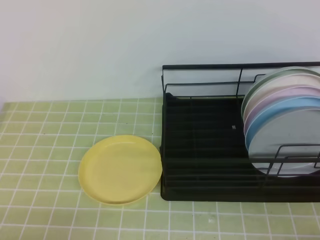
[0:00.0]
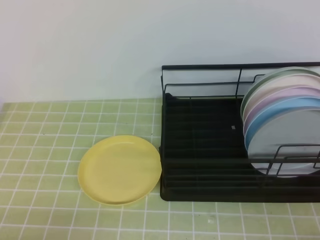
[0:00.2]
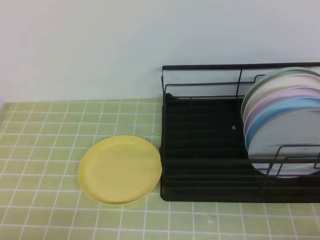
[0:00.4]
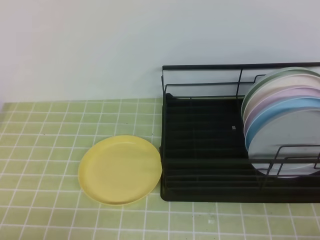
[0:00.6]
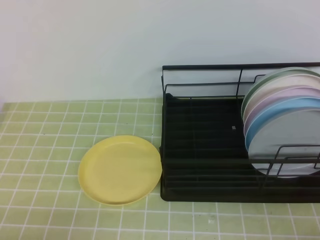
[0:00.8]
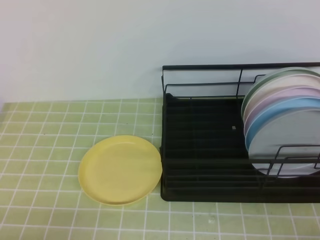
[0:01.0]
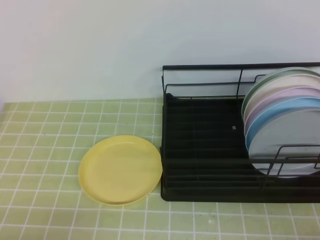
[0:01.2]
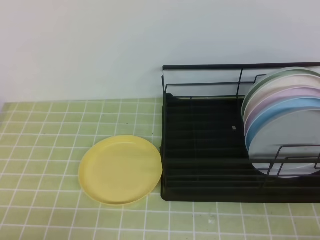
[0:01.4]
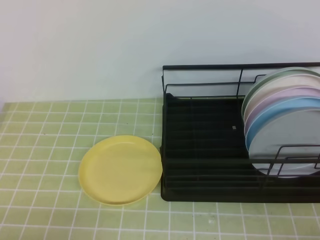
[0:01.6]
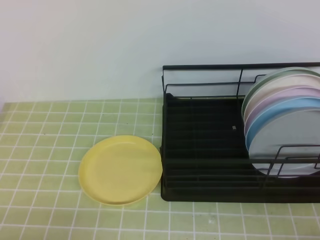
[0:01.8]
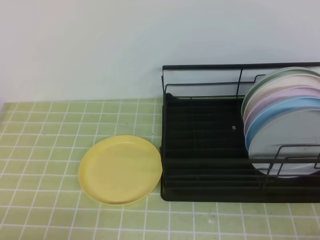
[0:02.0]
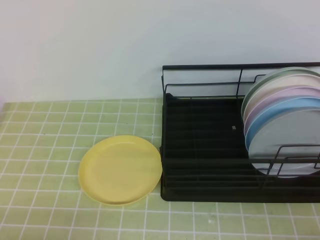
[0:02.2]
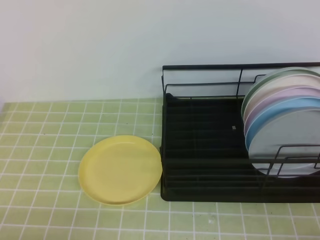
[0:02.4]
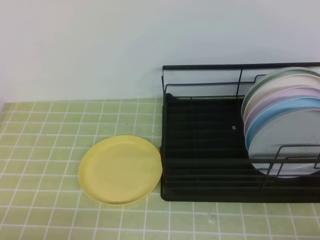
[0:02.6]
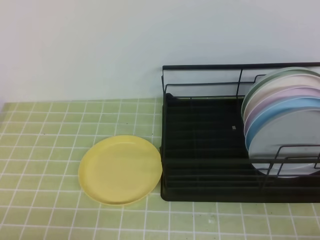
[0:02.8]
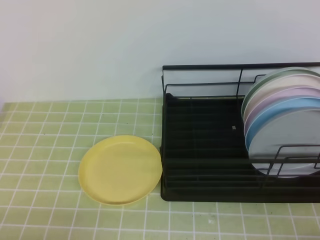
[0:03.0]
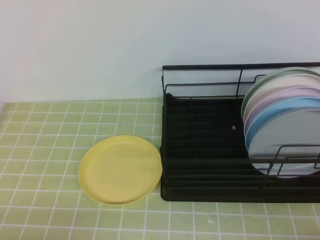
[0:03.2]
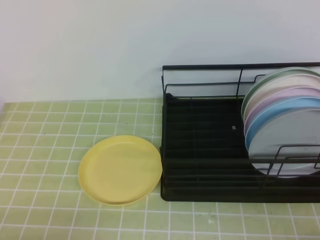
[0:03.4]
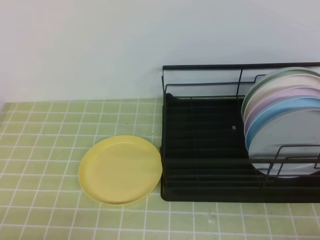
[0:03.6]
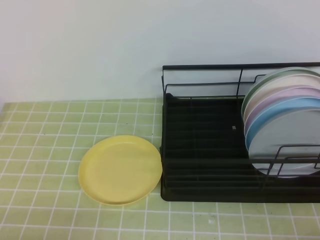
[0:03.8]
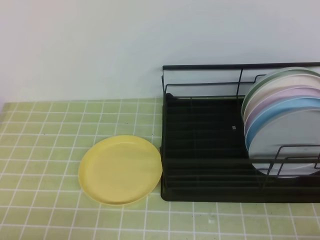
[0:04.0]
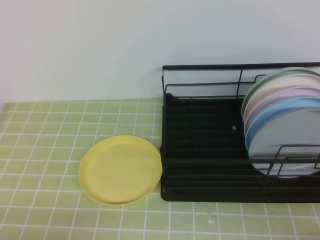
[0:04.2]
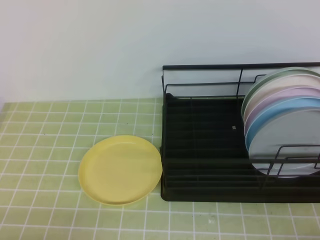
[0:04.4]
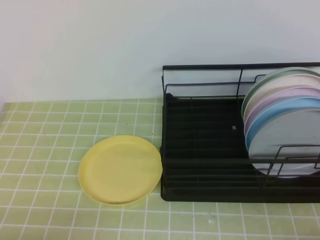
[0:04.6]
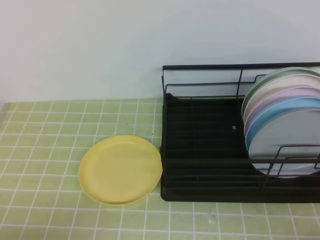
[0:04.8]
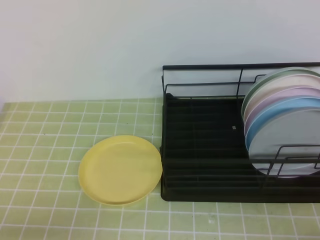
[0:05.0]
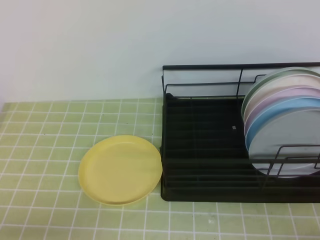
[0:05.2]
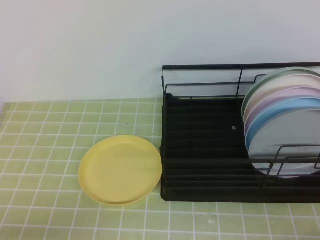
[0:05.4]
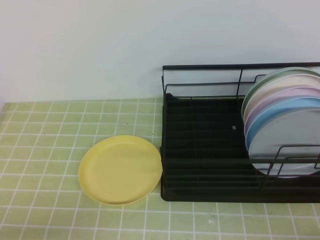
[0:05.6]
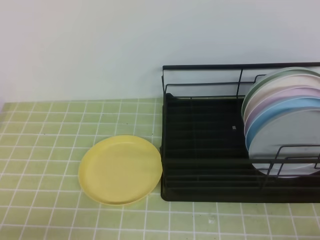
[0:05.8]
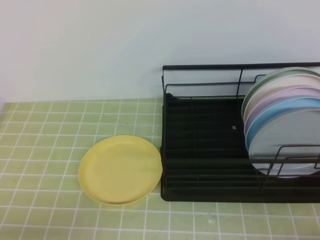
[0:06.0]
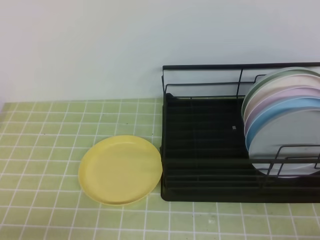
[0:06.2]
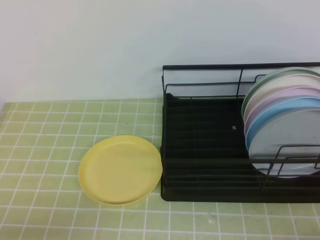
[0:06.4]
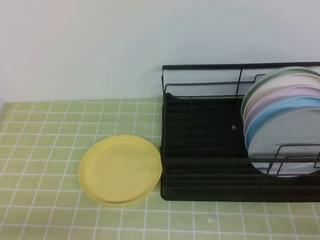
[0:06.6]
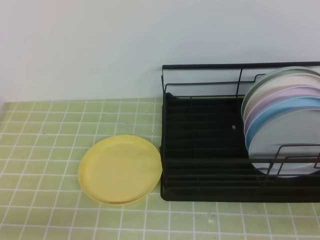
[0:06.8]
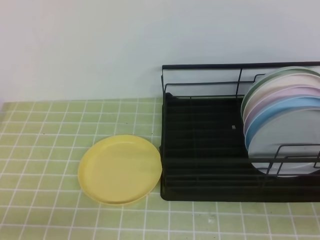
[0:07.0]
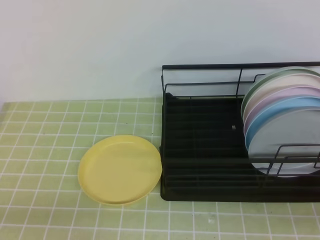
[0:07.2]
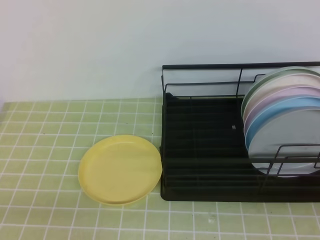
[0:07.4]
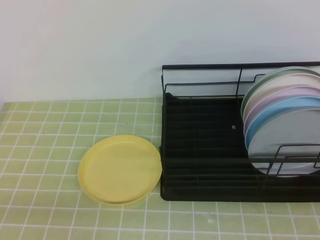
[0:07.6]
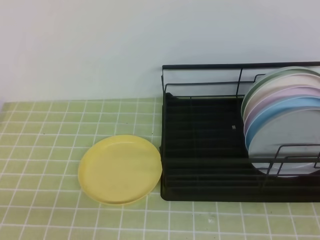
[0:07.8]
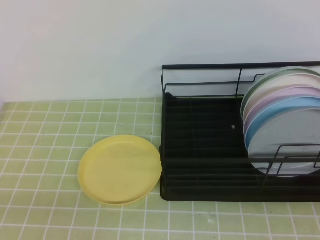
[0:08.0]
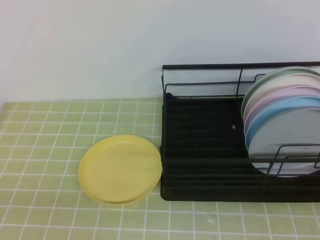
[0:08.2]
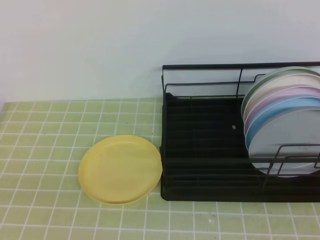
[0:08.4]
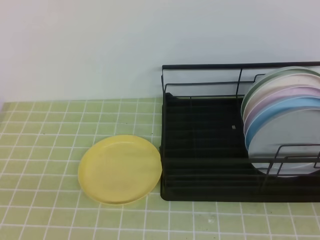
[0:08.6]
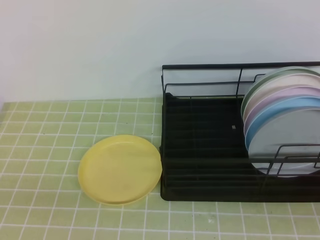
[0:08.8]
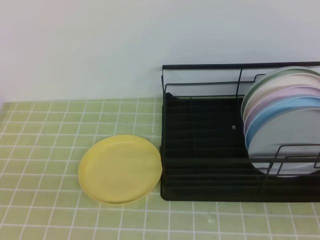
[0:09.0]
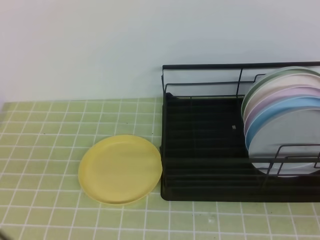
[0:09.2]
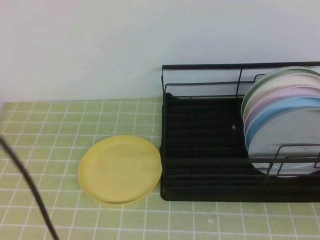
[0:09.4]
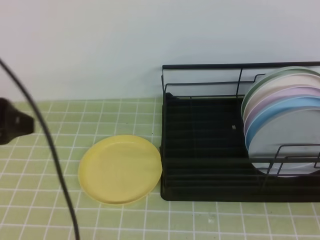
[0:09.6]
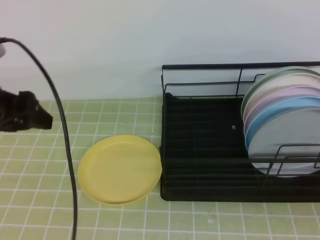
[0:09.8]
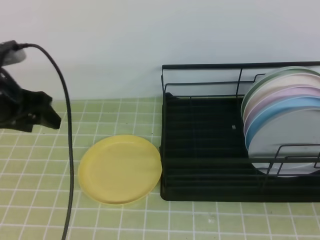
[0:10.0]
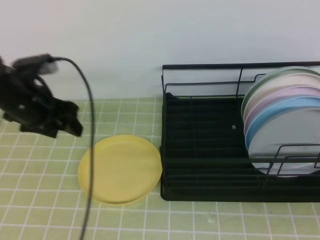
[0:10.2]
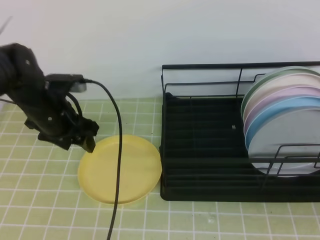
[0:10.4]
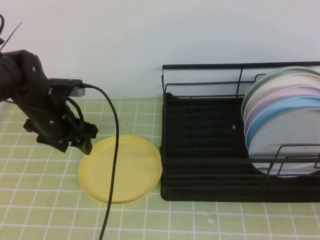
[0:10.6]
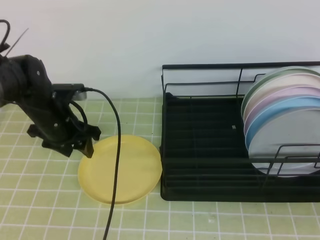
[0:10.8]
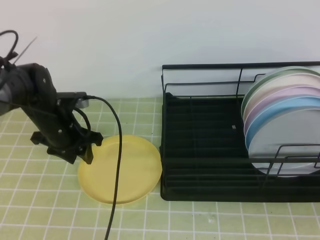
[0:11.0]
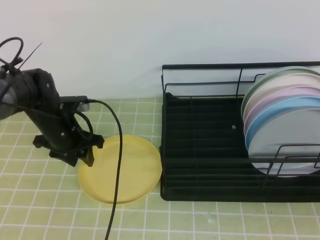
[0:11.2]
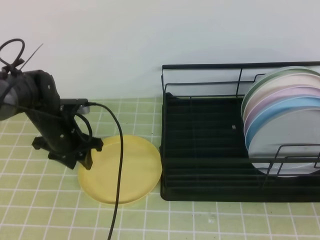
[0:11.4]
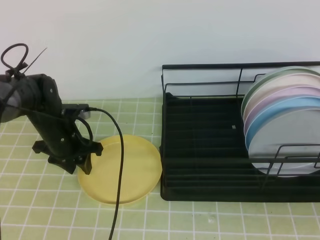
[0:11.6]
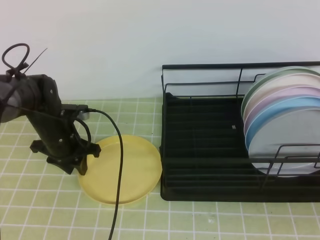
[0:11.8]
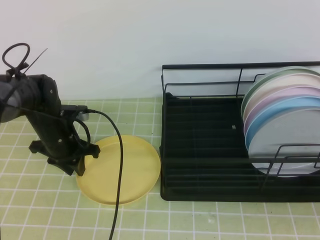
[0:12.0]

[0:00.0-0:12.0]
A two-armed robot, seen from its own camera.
0:00.0 to 0:04.4: Both grippers stay put.
0:09.0 to 0:10.4: The left gripper moves forward, approximately 30 cm, and opens its fingers.
0:10.4 to 0:12.0: The left gripper heads downward, covering approximately 10 cm, and closes.

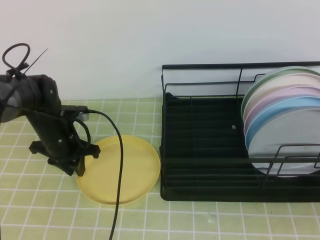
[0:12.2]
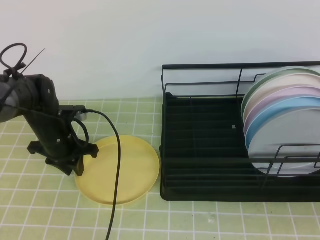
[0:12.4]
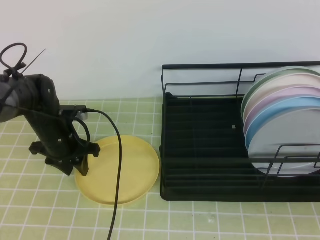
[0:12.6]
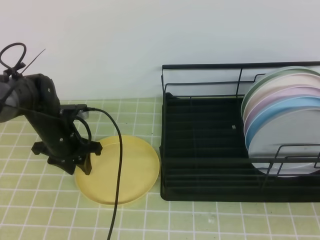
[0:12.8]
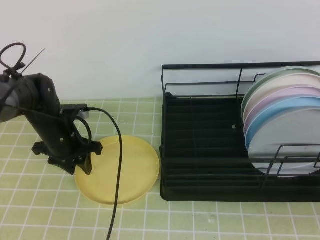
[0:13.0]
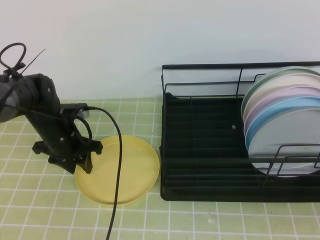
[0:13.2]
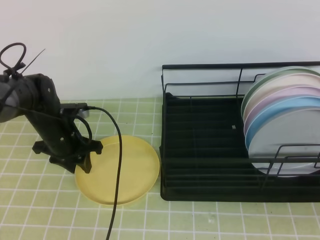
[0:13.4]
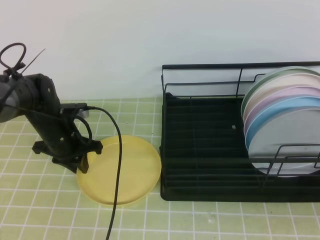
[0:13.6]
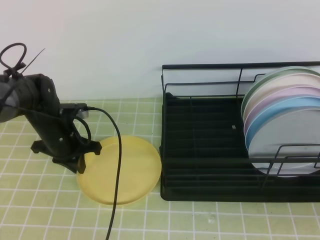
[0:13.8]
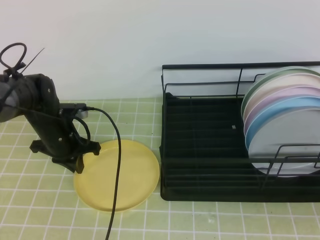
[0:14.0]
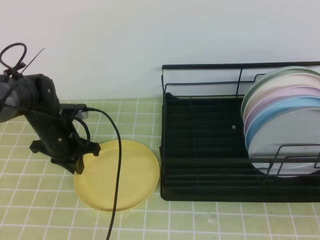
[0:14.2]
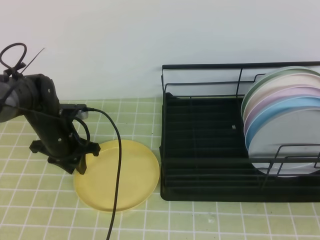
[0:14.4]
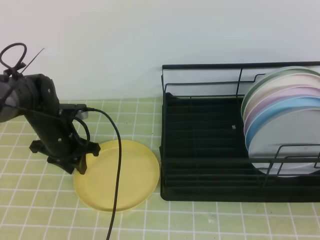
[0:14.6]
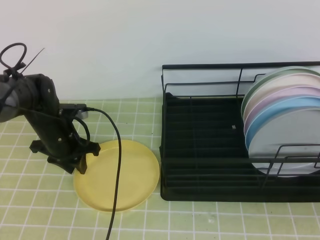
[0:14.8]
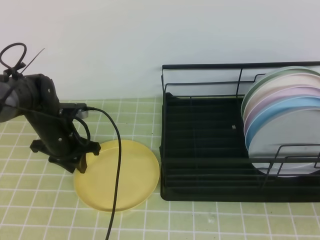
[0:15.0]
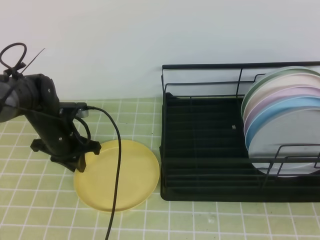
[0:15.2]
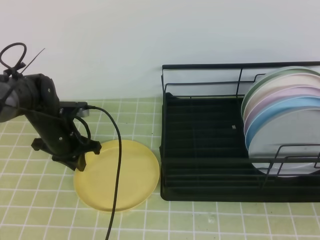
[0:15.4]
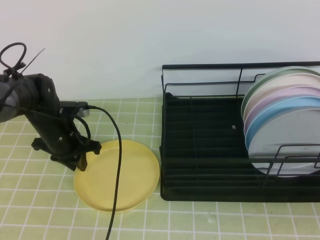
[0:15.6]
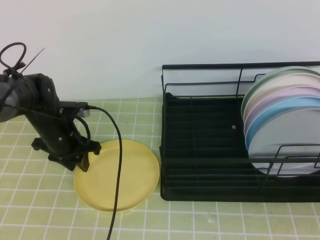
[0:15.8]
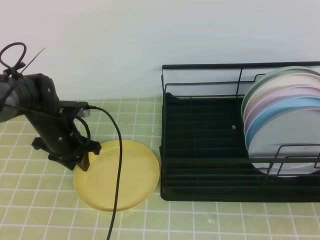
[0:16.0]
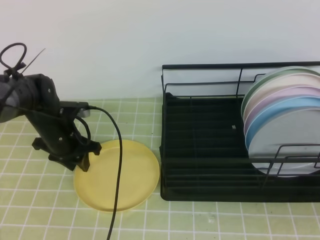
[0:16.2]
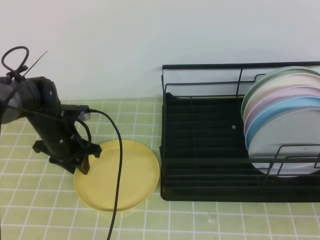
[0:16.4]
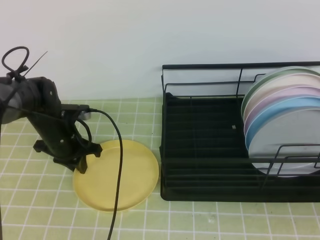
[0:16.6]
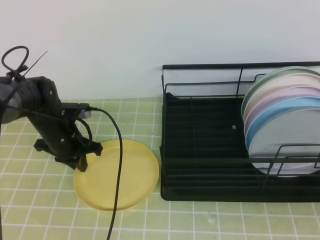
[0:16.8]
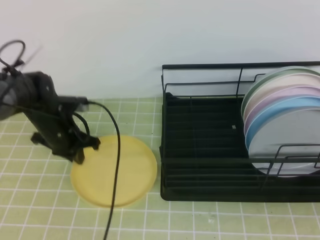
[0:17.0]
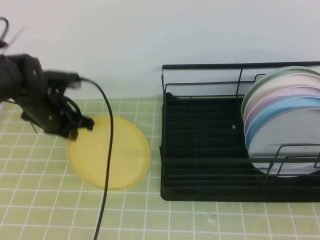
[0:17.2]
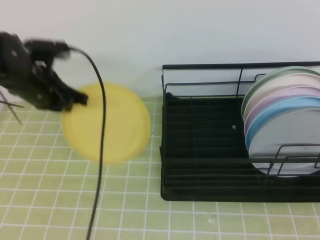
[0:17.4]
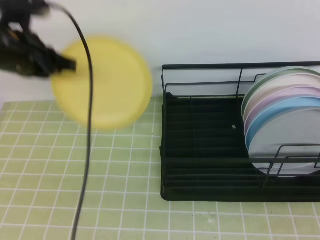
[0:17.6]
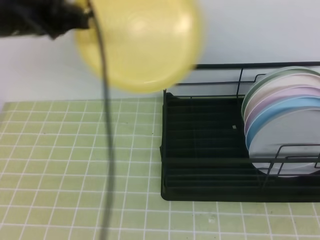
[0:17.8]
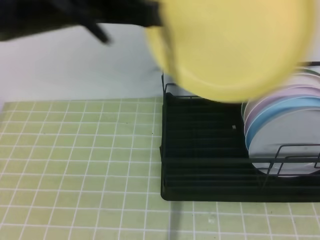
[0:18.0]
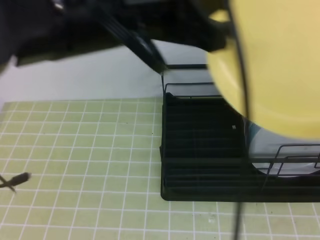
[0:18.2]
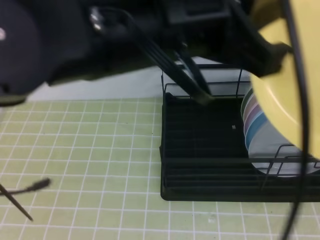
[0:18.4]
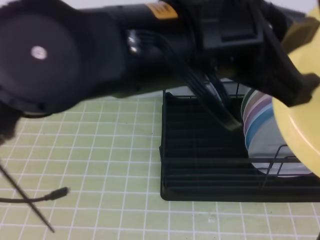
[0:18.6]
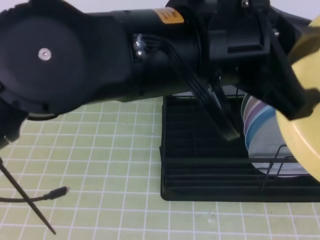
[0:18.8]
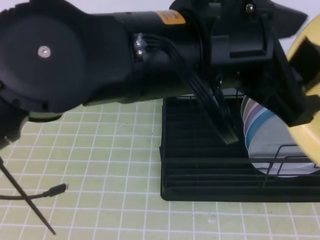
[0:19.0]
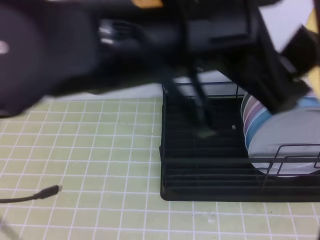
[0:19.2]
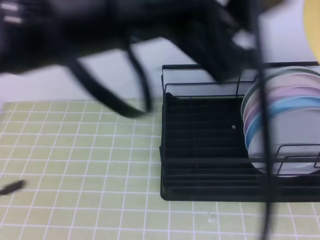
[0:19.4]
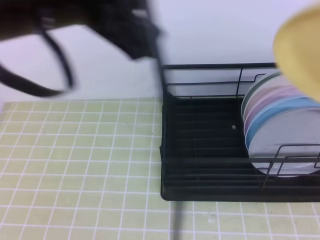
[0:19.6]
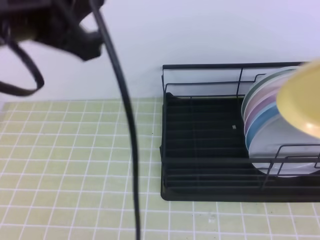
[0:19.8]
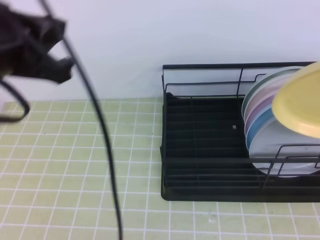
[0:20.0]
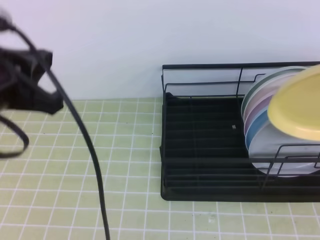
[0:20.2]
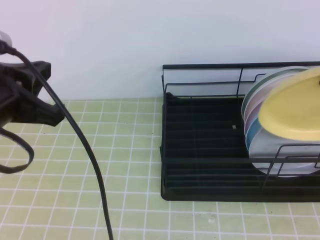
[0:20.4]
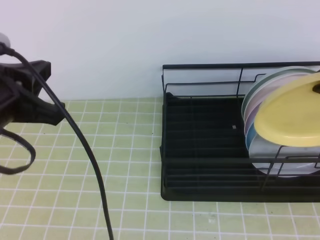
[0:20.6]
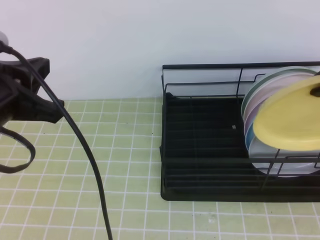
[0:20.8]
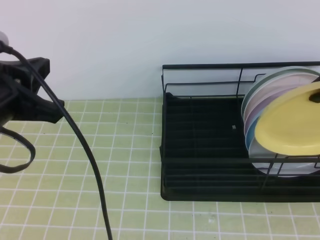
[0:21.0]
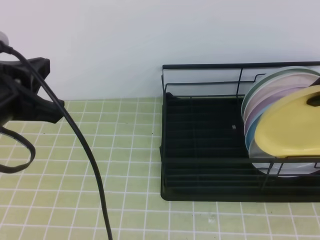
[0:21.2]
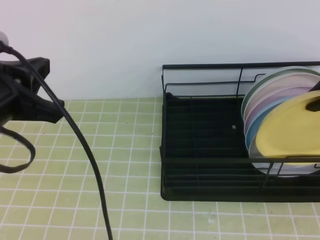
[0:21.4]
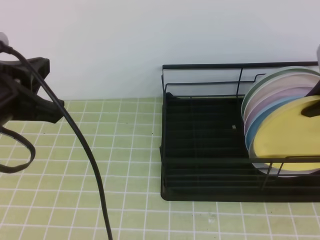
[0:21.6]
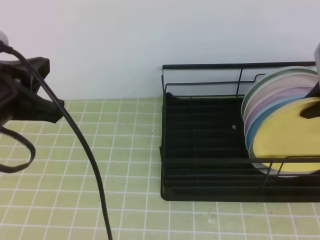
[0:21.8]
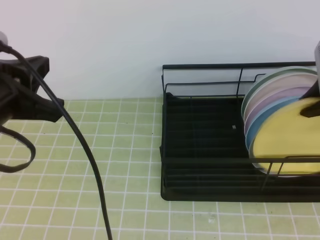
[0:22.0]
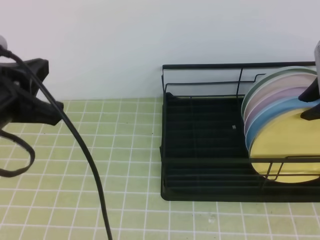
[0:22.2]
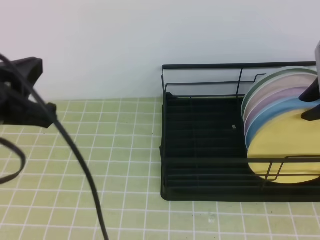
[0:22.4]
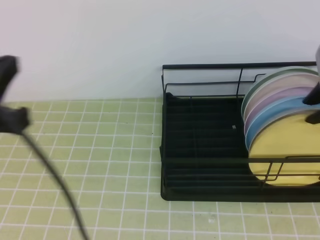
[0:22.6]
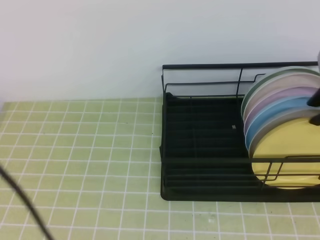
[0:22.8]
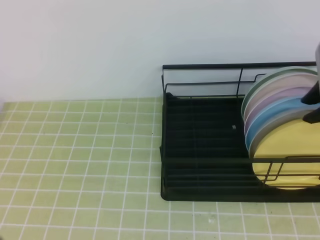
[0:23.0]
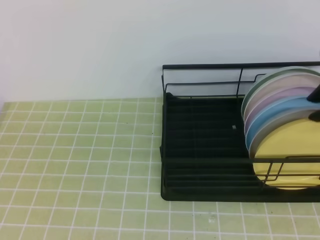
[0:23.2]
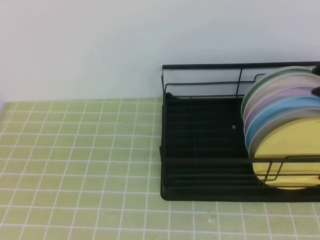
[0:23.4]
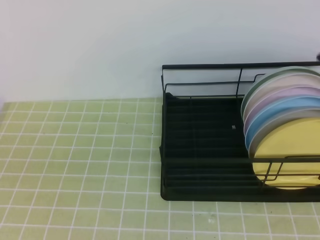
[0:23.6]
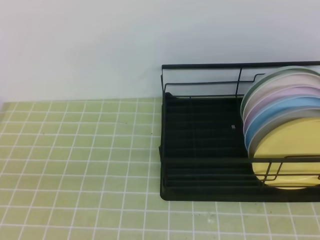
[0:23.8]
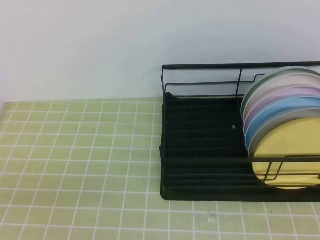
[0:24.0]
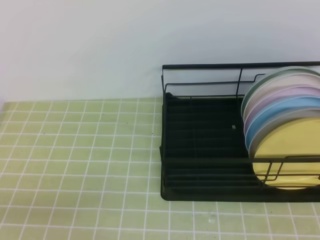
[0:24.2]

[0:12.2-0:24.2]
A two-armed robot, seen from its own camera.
Step, 0:15.8 to 0:19.0: Right place it at the front of the shelf.
0:12.2 to 0:16.6: The two grippers keep their place.
0:16.6 to 0:18.2: The right gripper heads upward, covering approximately 5 cm, and opens up. The left gripper moves upward, backward and to the right, some 40 cm.
0:18.2 to 0:19.8: The right gripper shifts approximately 20 cm forward and upward, and closes its fingers. The left gripper moves to the left, about 10 cm, and opens, then closes again.
0:19.8 to 0:21.2: The right gripper moves forward and downward, roughly 15 cm; the left gripper heads downward and to the left, covering roughly 10 cm.
0:21.2 to 0:22.6: The right gripper opens.
0:22.6 to 0:24.2: The left gripper heads downward and backward, covering roughly 20 cm; the right gripper heads upward and backward, covering roughly 20 cm, and closes.
